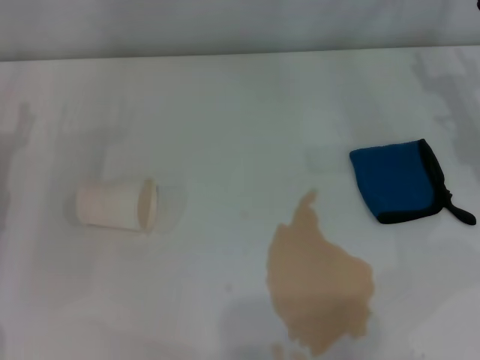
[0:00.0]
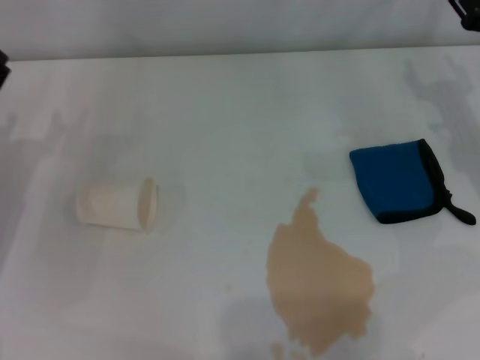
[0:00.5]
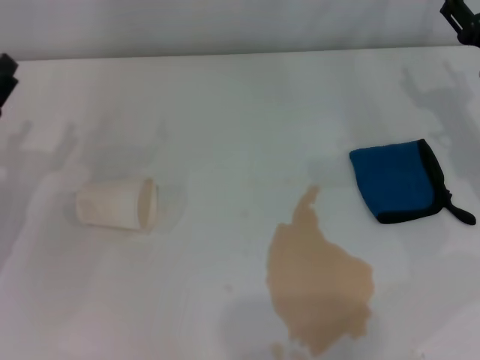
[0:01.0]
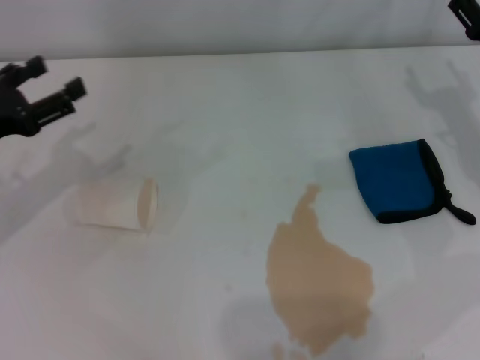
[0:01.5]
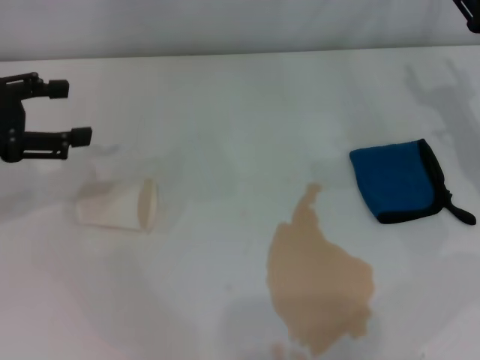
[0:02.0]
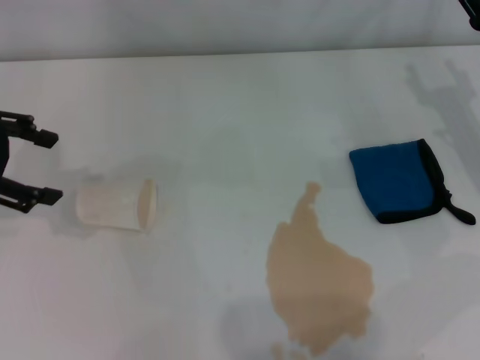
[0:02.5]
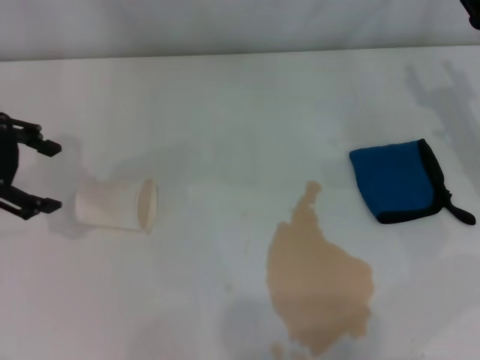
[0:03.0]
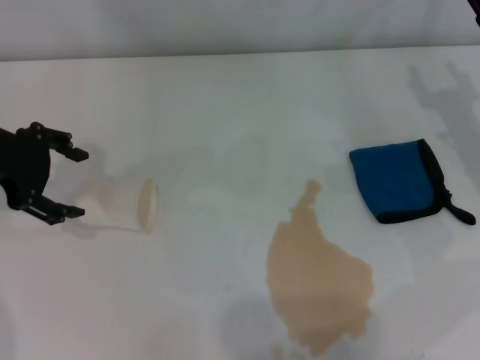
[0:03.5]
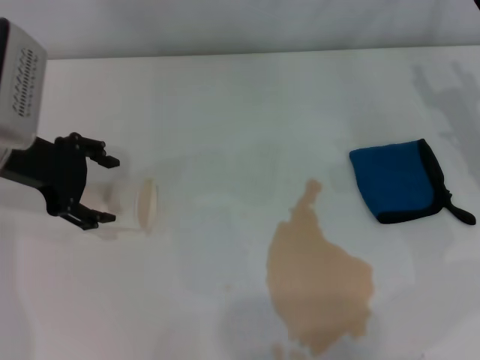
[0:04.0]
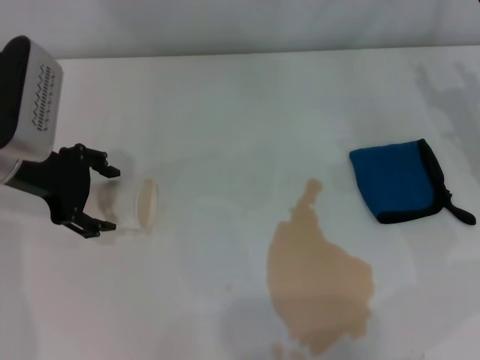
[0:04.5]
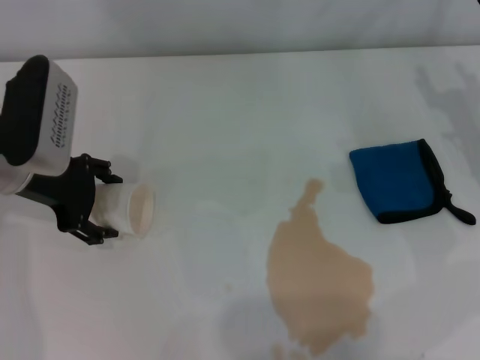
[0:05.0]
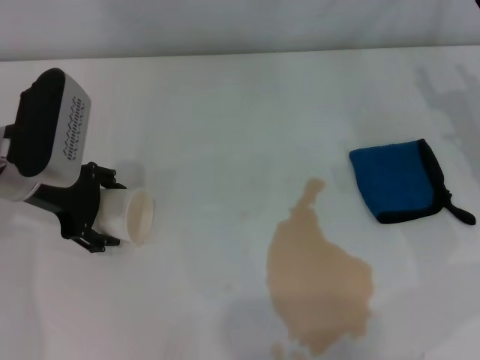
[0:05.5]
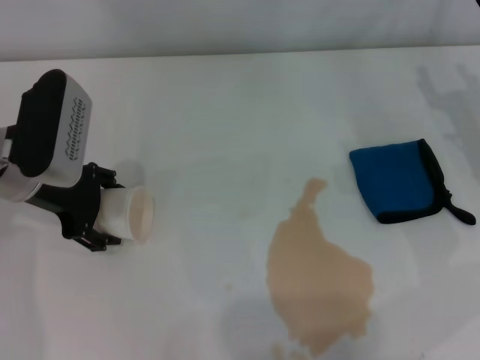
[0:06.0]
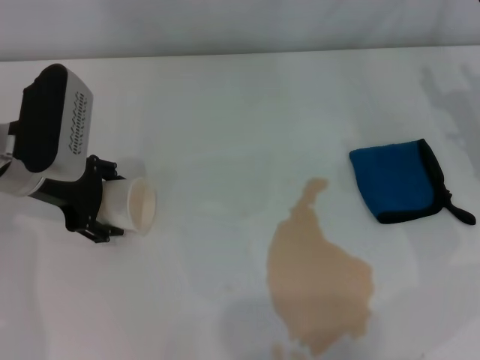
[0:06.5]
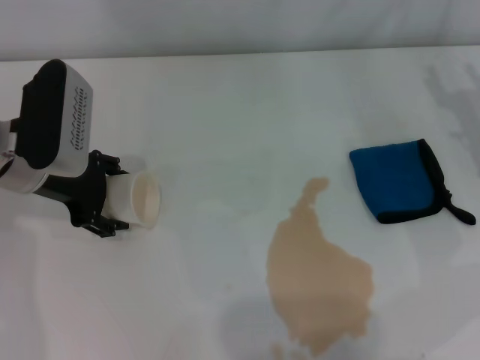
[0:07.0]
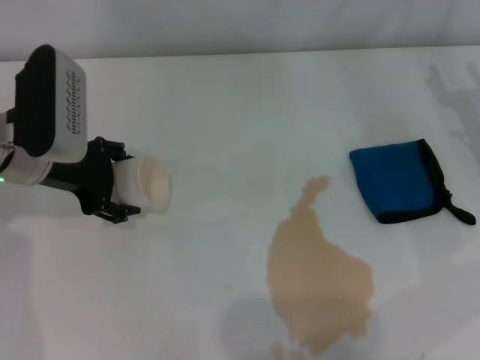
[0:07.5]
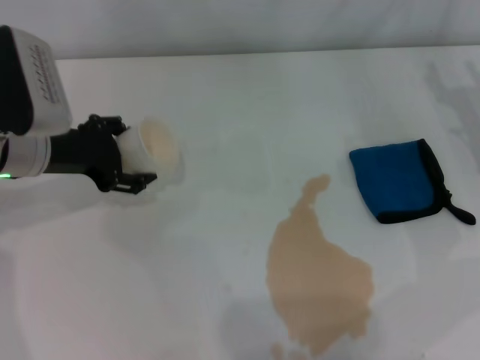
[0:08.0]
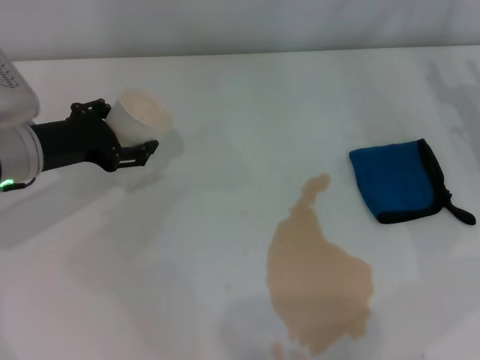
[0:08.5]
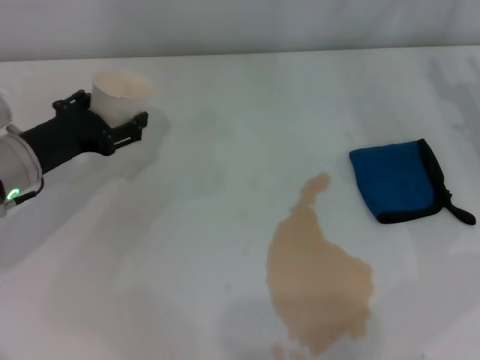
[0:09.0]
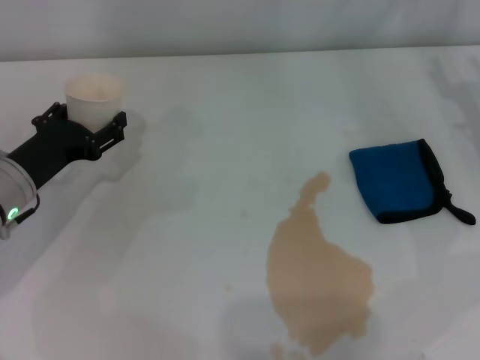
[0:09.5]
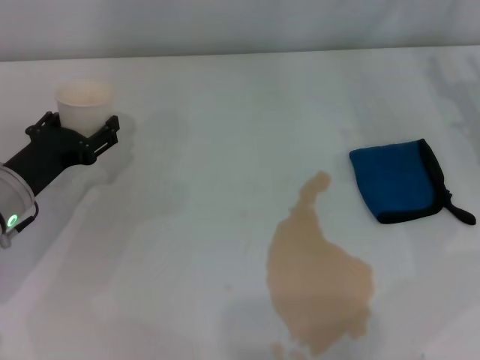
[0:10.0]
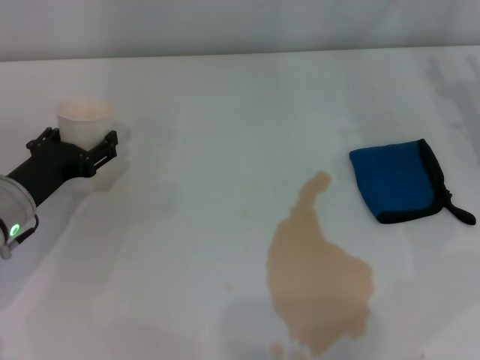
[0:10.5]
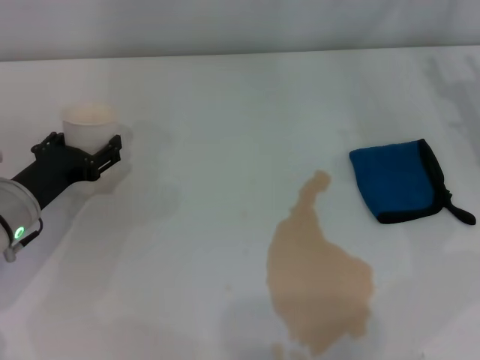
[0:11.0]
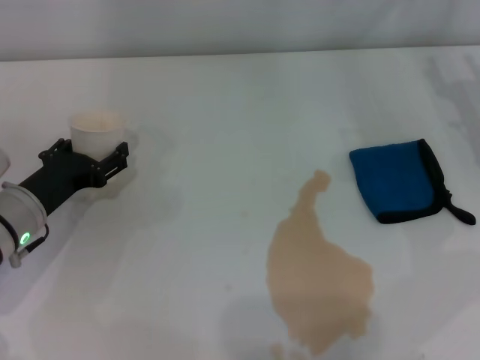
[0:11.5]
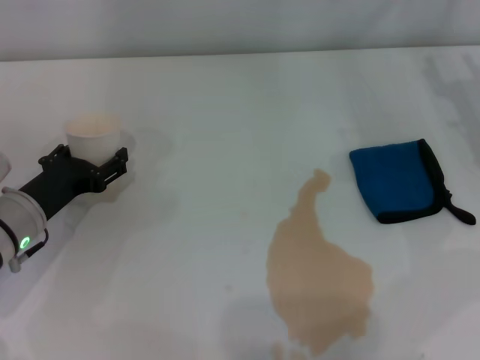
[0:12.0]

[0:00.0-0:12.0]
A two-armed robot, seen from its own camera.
Step, 0:00.0 to 0:07.0: Grasp the paper cup with the left gripper.
0:00.0 to 0:02.0: The left gripper goes approximately 10 cm upward.
0:02.0 to 0:04.0: The left gripper heads to the right, covering about 10 cm.
0:04.0 to 0:06.0: The grippers make only small movements.
0:08.0 to 0:10.0: The left gripper shifts roughly 10 cm downward.
0:10.0 to 0:12.0: The grippers stay close to where they were, moving slightly.

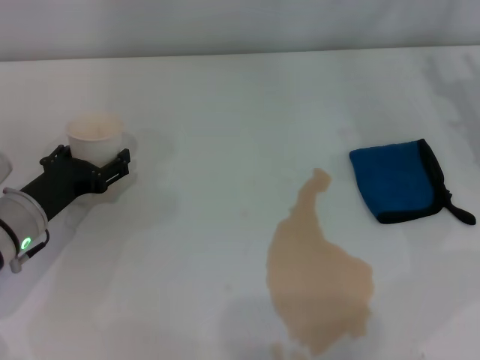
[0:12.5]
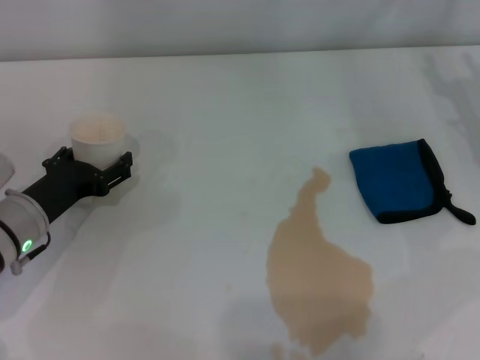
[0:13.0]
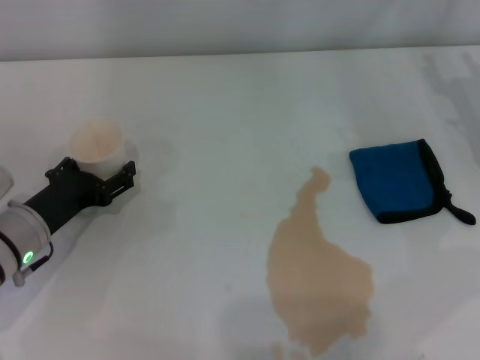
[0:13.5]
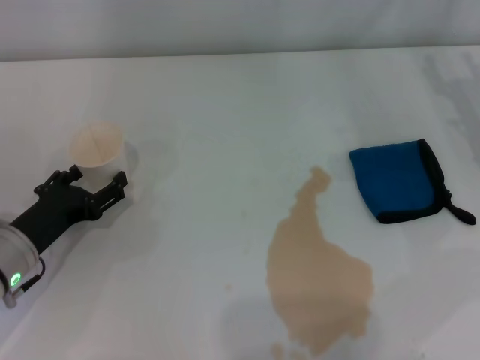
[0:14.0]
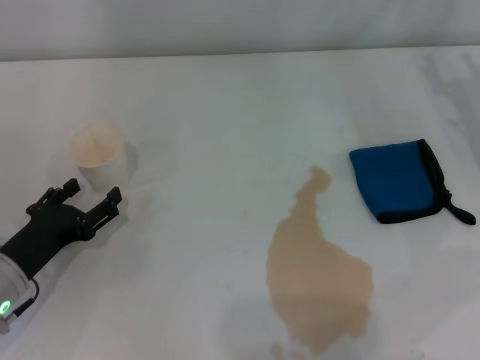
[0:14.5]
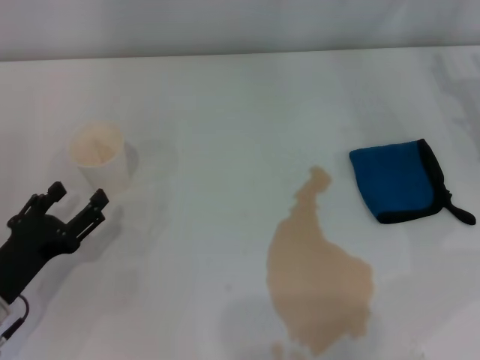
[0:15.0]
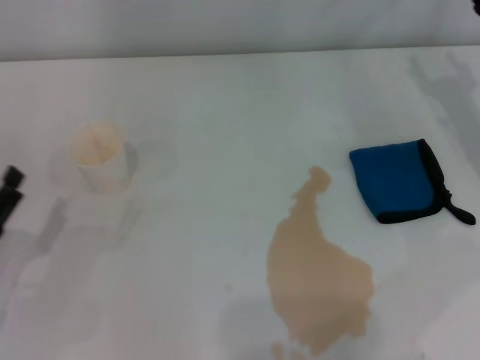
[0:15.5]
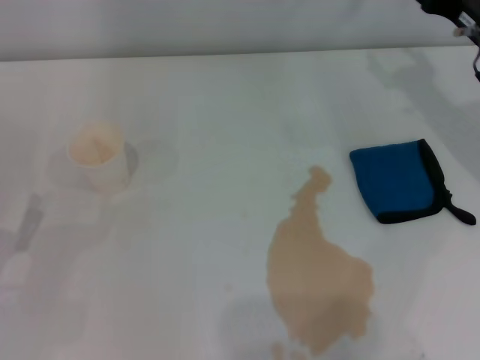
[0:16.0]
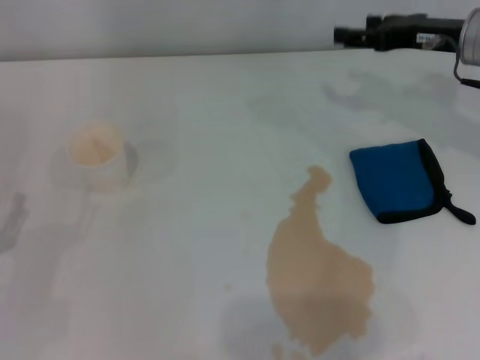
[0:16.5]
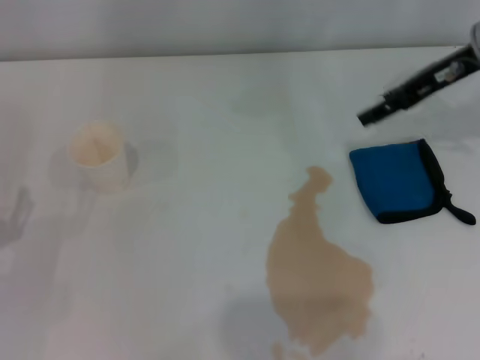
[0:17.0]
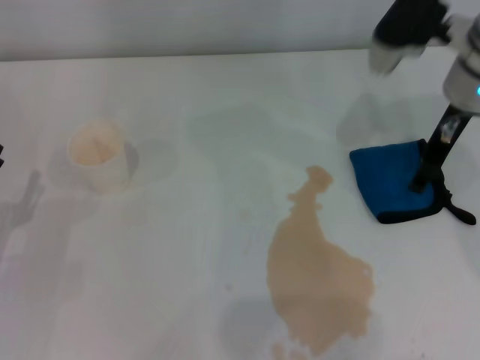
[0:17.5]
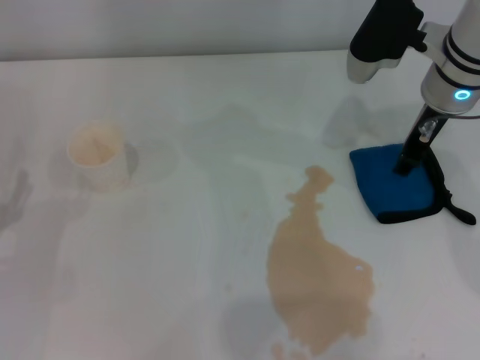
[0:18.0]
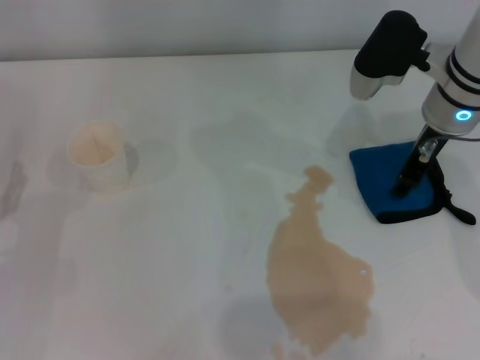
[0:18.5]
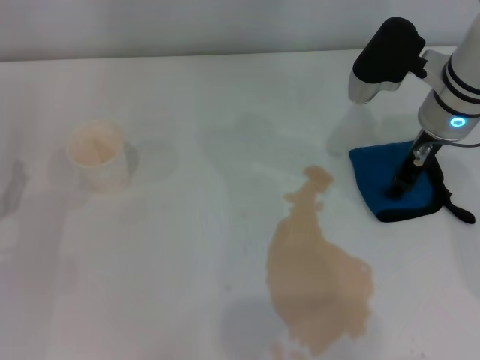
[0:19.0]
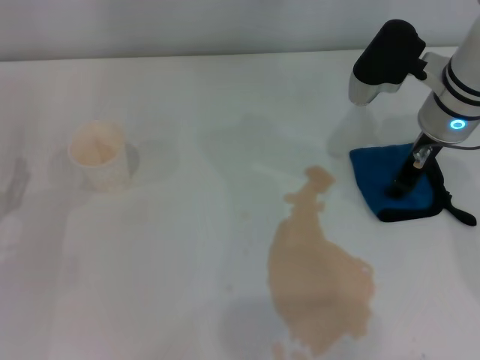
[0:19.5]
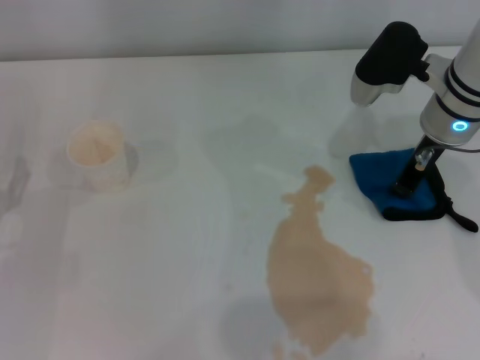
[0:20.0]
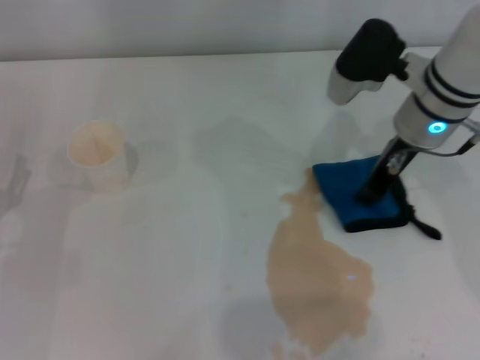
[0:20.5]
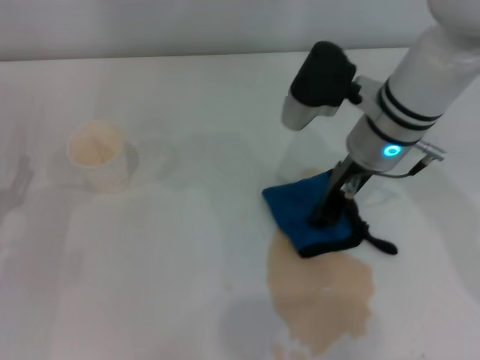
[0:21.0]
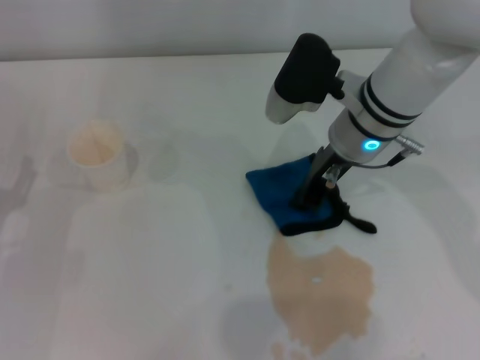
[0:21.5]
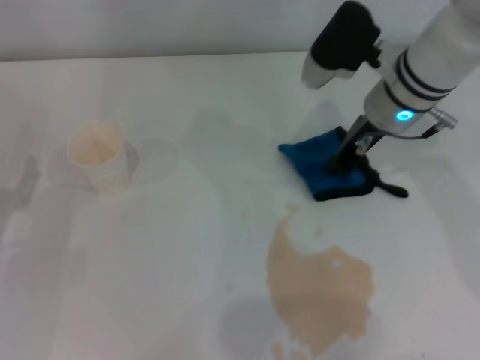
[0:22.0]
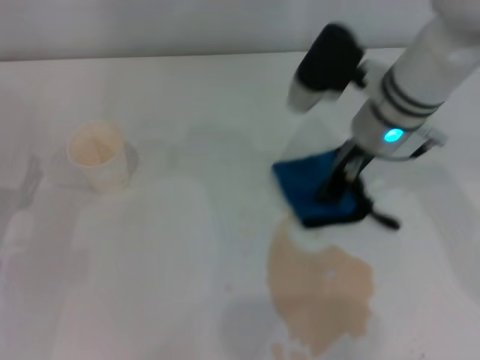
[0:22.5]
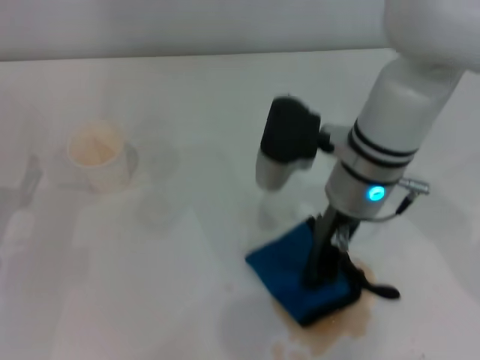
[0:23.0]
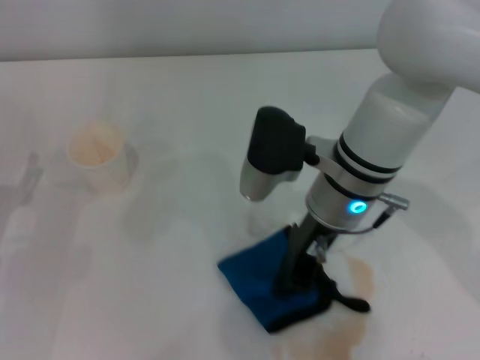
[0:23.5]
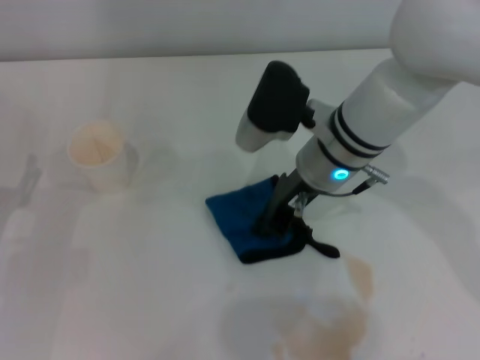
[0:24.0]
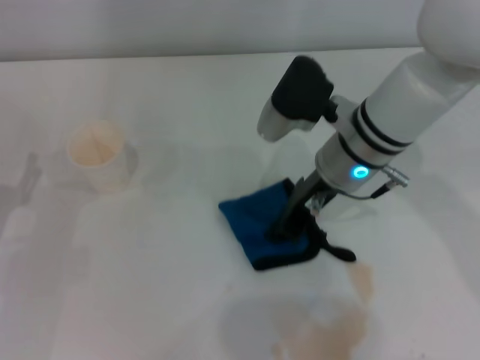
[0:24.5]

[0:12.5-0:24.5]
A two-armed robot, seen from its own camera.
Step, 0:14.5 to 0:19.0: Grasp the rag with the right gripper.
0:12.5 to 0:14.5: The left gripper heads backward, covering about 5 cm.
0:14.5 to 0:16.5: The left gripper is displaced to the left and backward by some 10 cm; the right gripper travels forward by approximately 5 cm.
0:16.5 to 0:18.5: The right gripper heads to the left, covering approximately 5 cm, and closes its fingers.
0:18.5 to 0:20.5: The right gripper closes up.

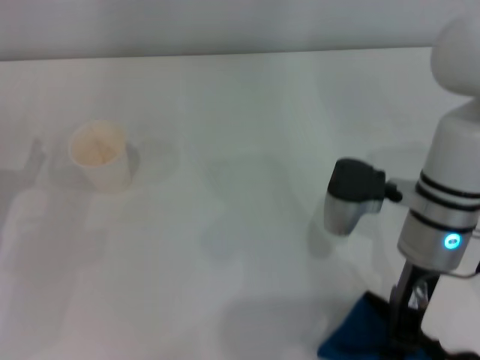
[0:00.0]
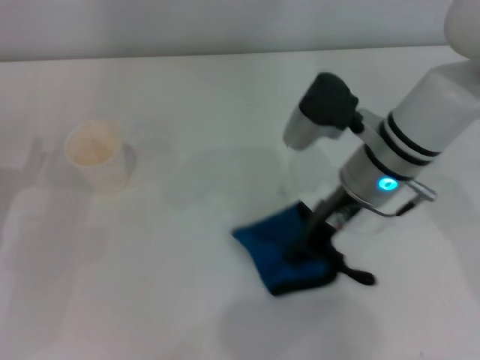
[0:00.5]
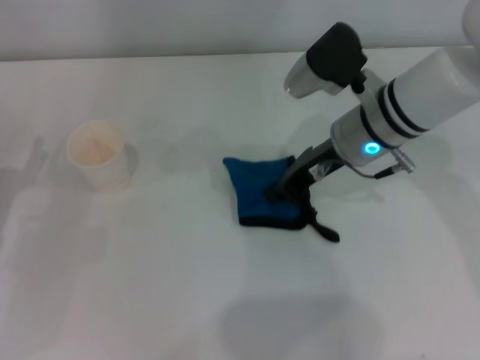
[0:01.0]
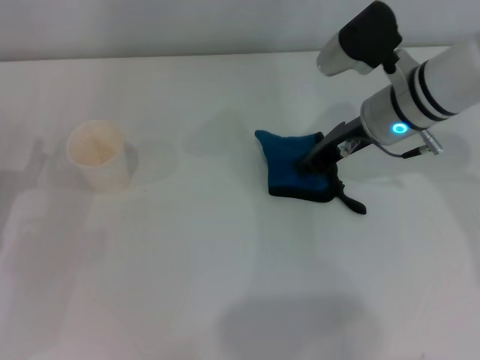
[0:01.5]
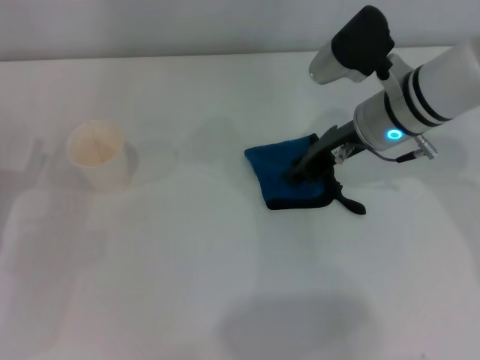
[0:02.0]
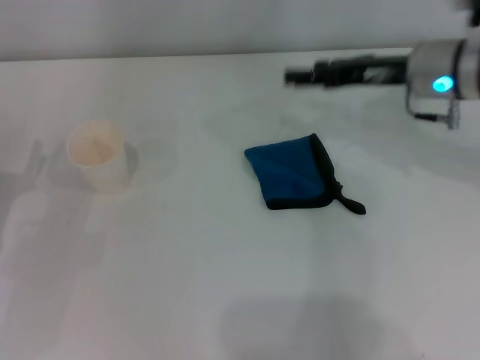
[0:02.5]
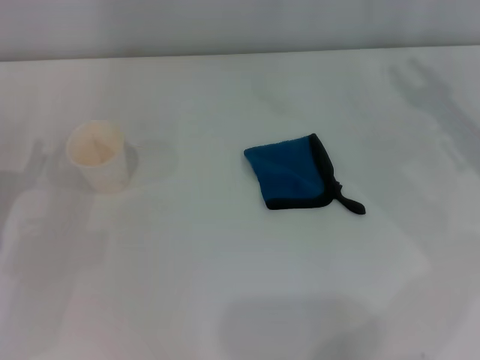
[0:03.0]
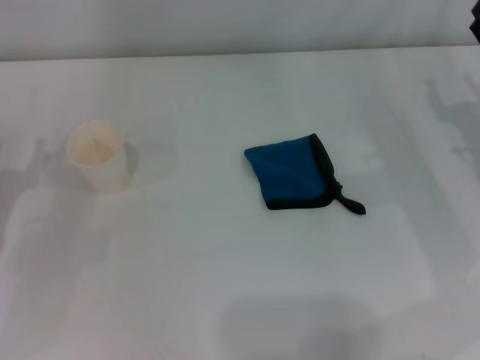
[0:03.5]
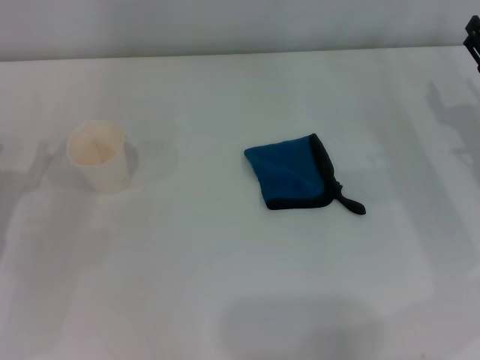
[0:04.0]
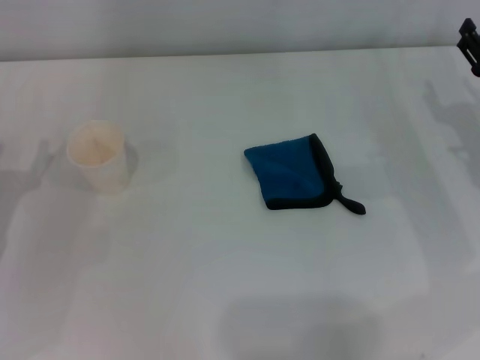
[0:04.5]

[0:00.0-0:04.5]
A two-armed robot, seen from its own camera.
0:00.0 to 0:02.0: The right gripper heads forward, covering approximately 10 cm.
0:02.0 to 0:04.5: The right gripper shifts roughly 15 cm to the right and backward, and opens its fingers.
